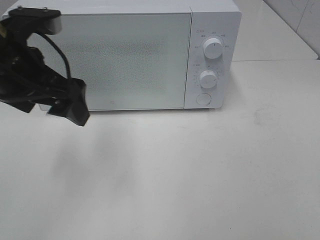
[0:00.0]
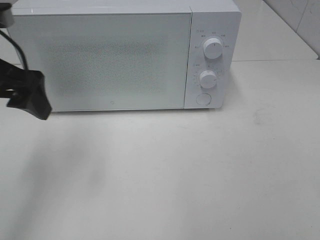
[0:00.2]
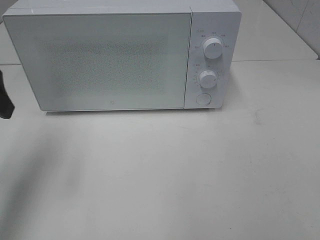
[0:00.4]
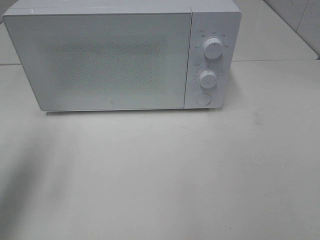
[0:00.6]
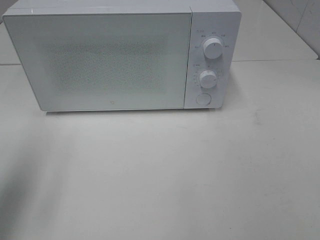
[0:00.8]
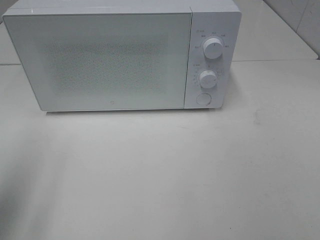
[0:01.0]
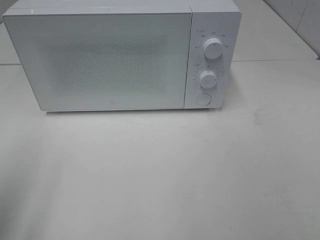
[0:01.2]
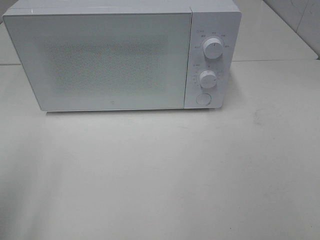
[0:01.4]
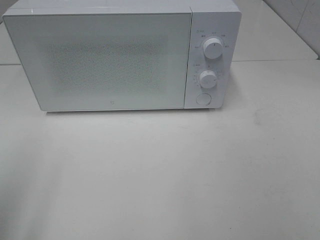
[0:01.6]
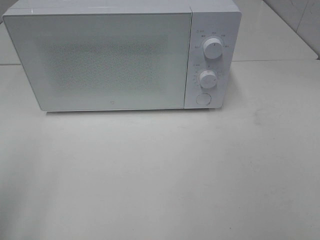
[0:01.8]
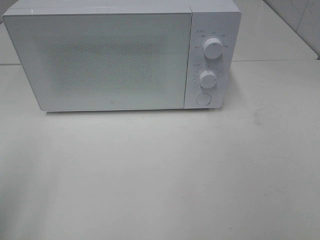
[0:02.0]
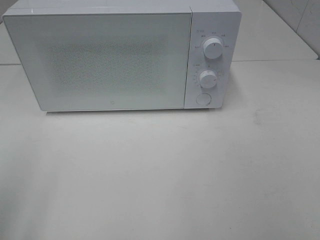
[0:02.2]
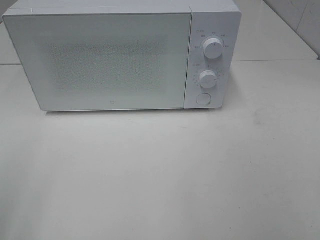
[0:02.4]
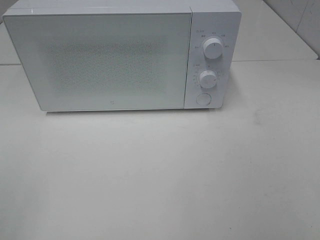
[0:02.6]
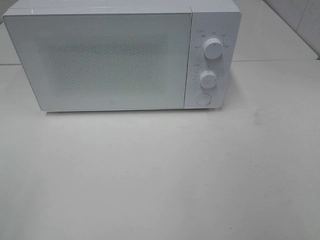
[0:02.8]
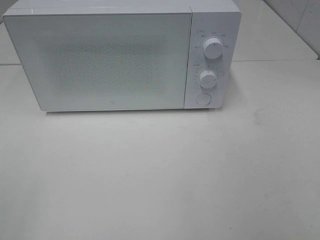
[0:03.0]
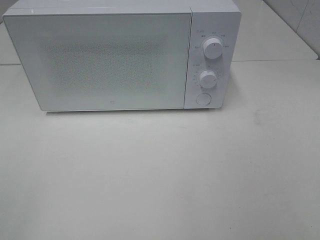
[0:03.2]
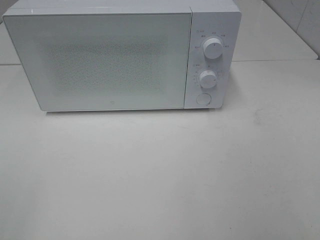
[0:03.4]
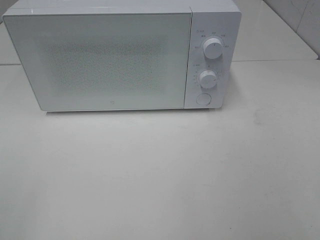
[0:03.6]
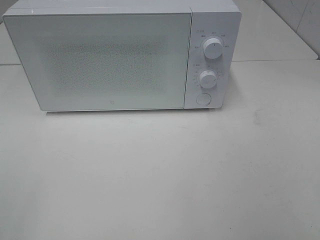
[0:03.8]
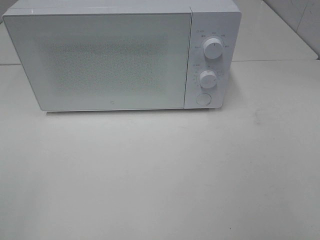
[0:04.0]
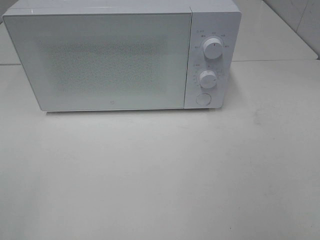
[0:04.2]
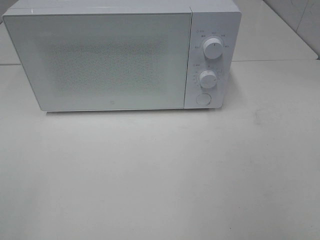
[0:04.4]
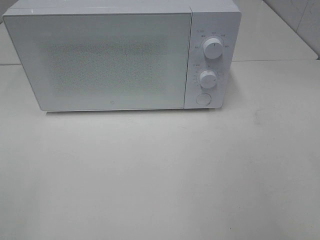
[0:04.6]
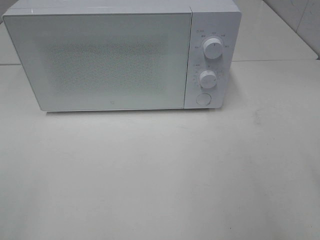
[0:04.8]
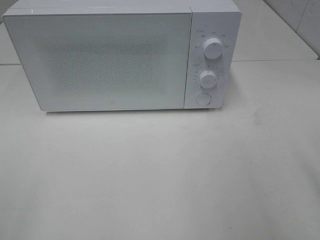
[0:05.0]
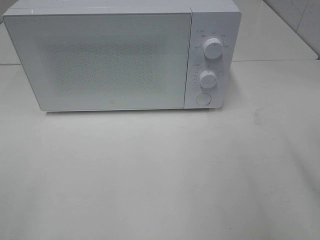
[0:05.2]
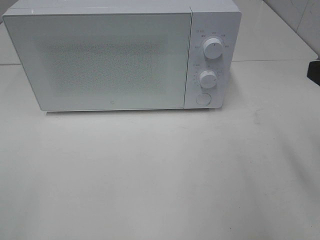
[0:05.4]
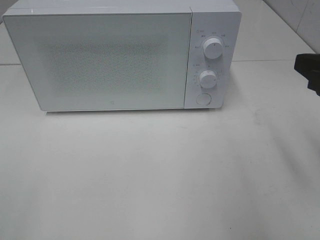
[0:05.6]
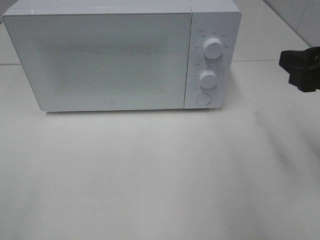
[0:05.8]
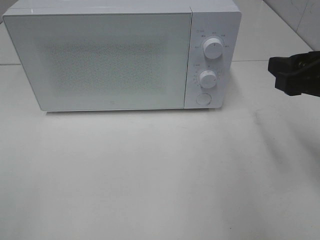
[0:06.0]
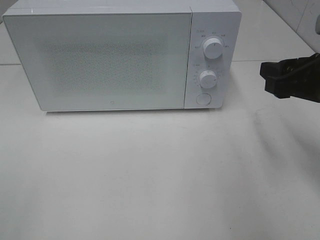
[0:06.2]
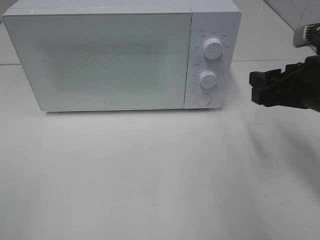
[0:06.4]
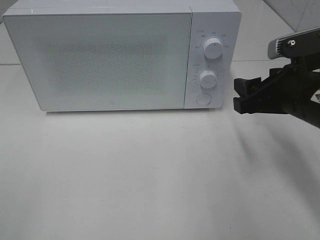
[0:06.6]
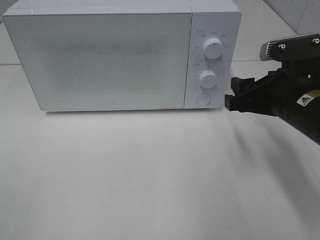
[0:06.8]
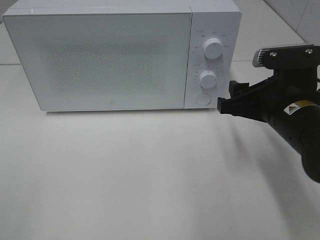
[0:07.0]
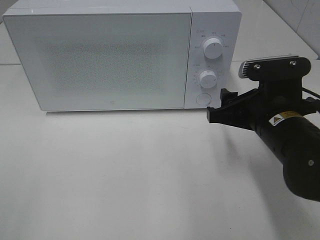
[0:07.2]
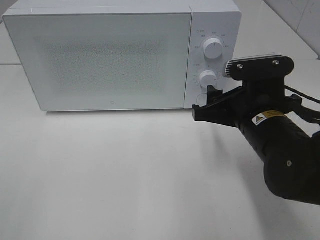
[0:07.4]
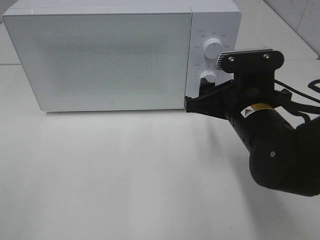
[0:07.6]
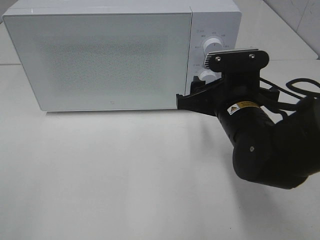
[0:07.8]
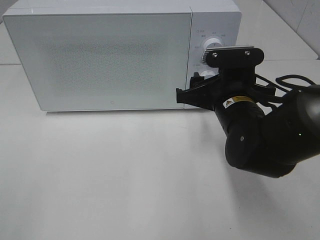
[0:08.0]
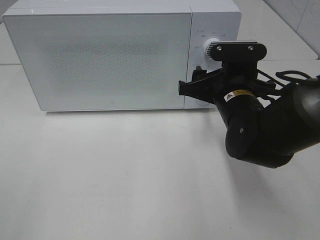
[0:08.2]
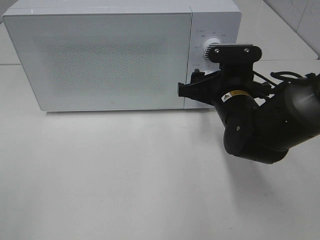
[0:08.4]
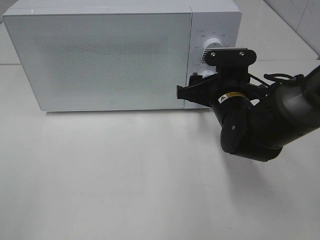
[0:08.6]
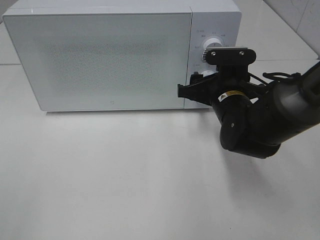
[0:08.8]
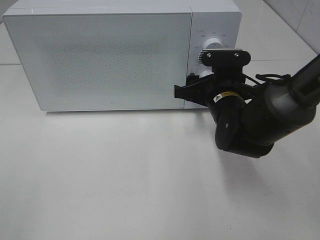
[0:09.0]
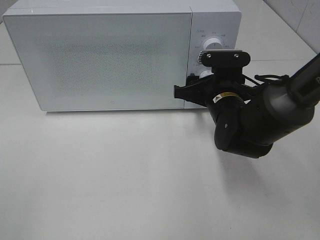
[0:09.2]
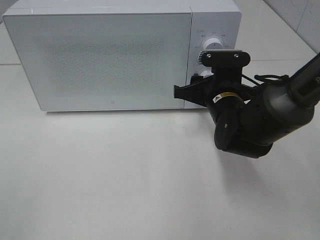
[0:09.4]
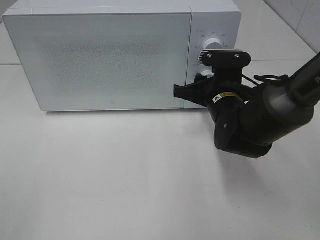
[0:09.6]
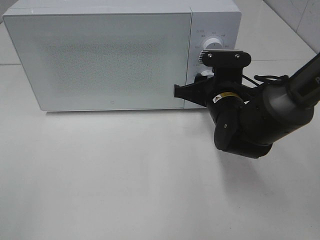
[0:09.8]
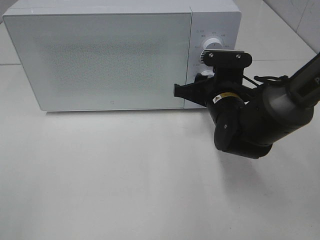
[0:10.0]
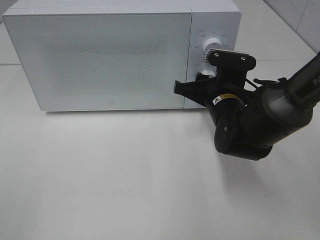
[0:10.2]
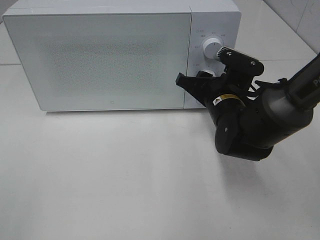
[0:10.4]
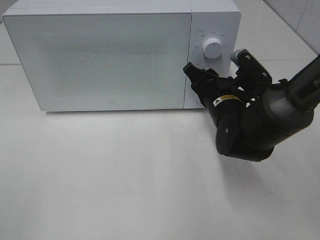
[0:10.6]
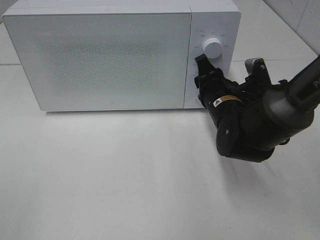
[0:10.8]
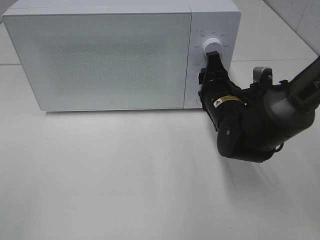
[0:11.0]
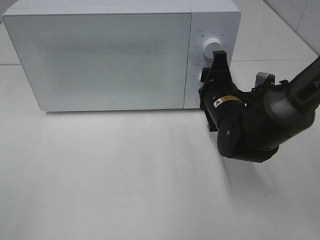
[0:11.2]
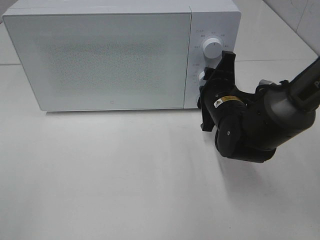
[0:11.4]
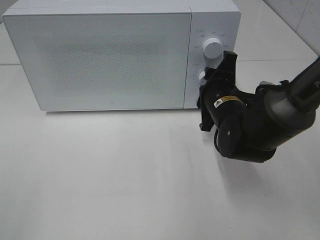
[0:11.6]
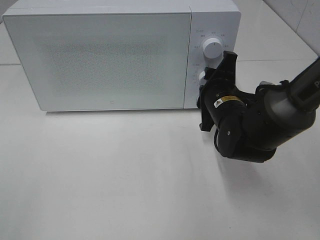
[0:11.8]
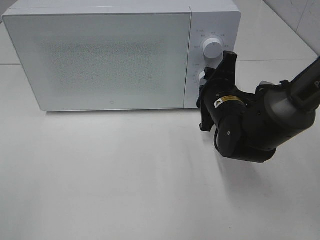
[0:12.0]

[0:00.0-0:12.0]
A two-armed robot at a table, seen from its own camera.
Task of the whole recording: Heat the burger.
0:00.0 to 0:01.6: The left gripper goes some 20 cm backward and to the left.
0:04.4 to 0:06.0: The right gripper goes roughly 20 cm forward and downward.
0:06.0 to 0:07.6: The right gripper moves to the left and downward, about 15 cm.
0:07.6 to 0:09.0: The right gripper moves forward, roughly 10 cm.

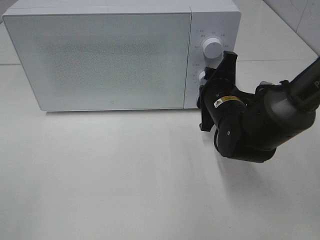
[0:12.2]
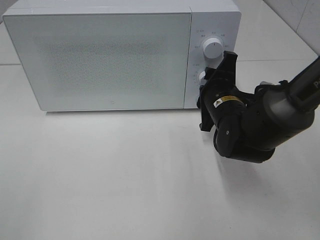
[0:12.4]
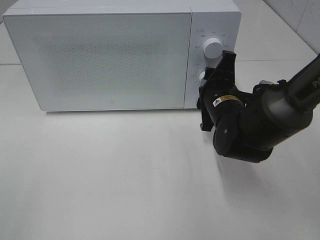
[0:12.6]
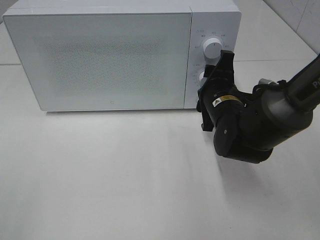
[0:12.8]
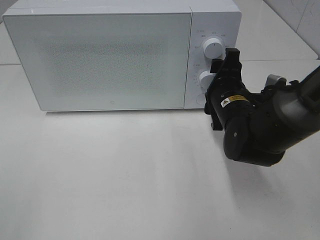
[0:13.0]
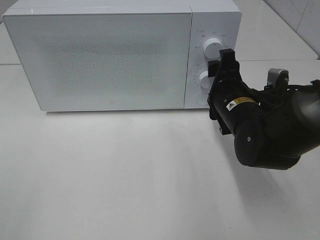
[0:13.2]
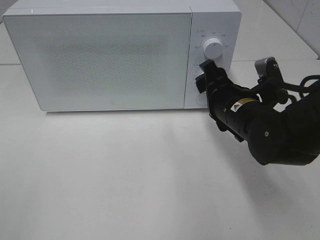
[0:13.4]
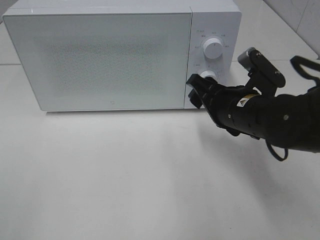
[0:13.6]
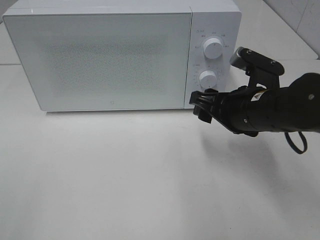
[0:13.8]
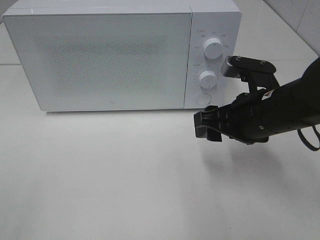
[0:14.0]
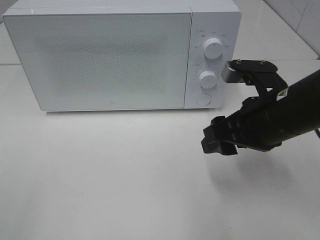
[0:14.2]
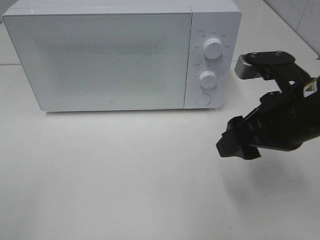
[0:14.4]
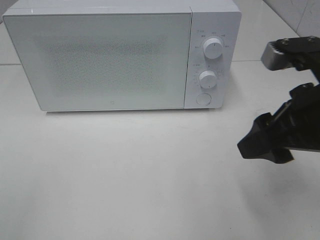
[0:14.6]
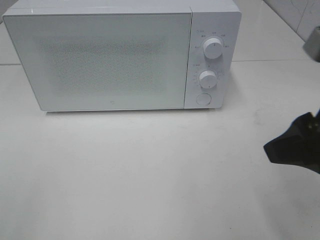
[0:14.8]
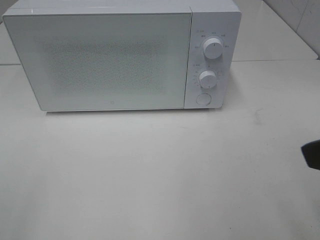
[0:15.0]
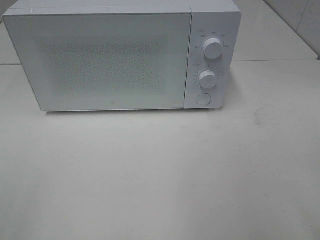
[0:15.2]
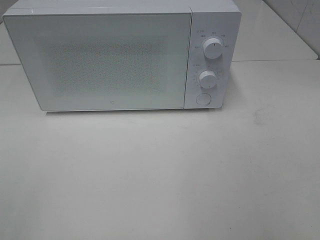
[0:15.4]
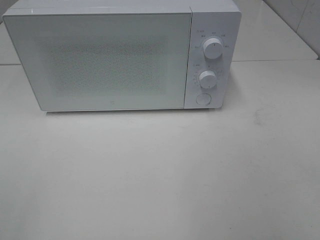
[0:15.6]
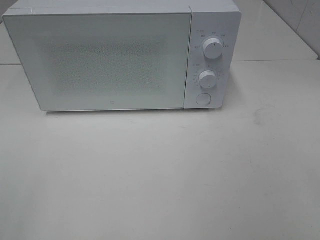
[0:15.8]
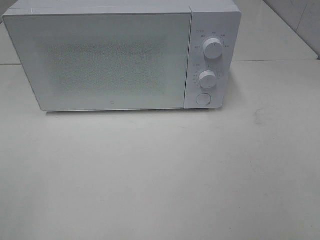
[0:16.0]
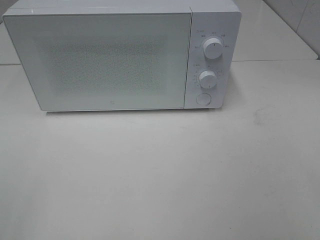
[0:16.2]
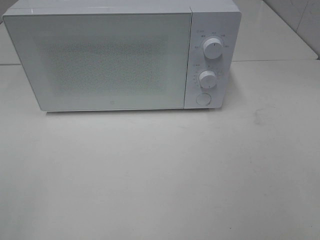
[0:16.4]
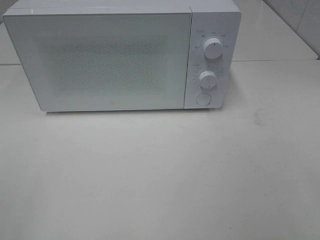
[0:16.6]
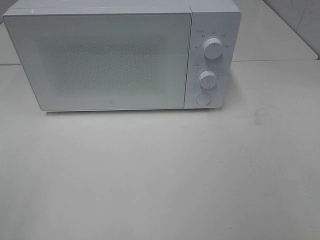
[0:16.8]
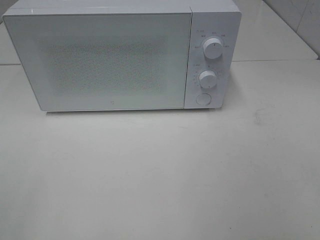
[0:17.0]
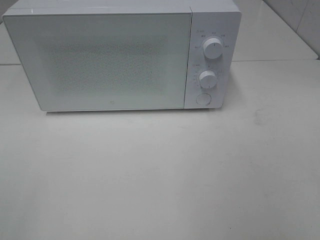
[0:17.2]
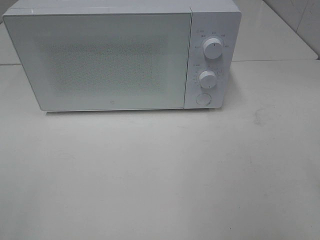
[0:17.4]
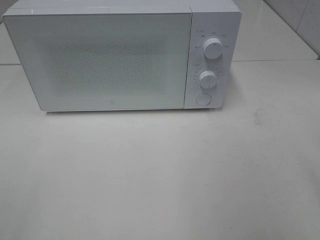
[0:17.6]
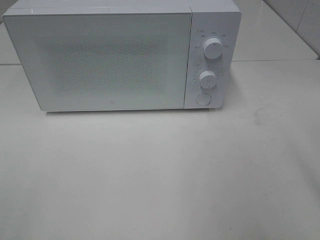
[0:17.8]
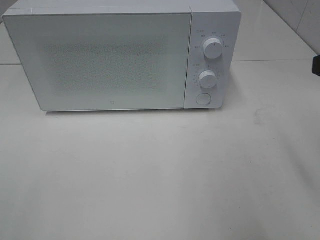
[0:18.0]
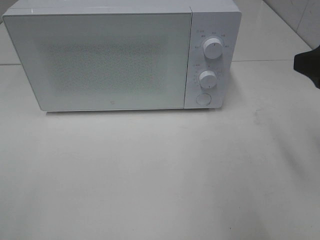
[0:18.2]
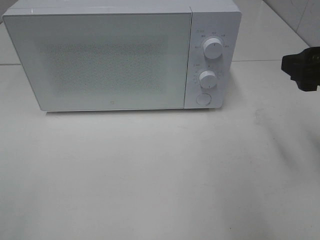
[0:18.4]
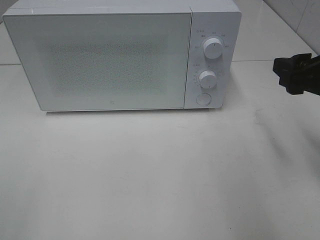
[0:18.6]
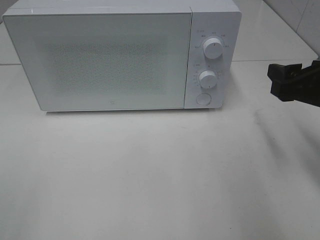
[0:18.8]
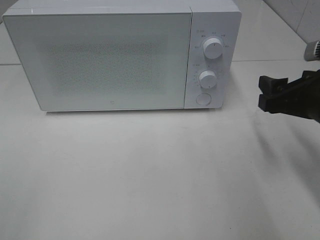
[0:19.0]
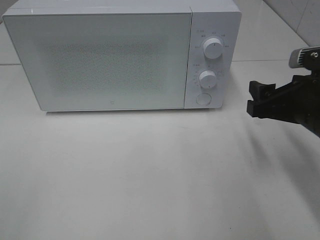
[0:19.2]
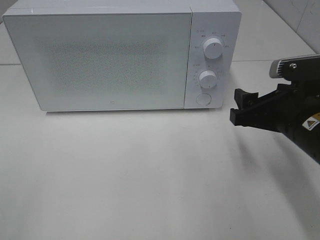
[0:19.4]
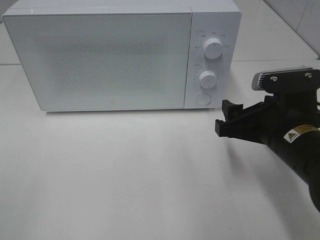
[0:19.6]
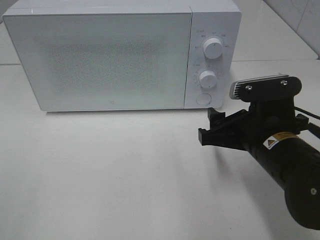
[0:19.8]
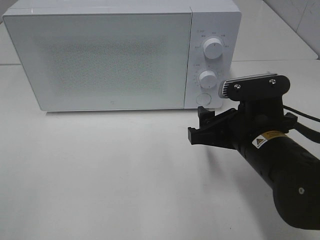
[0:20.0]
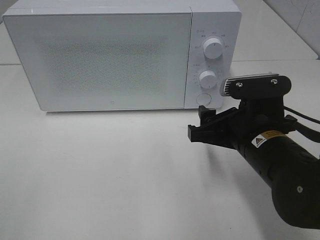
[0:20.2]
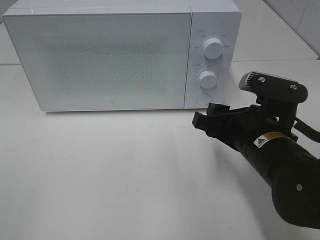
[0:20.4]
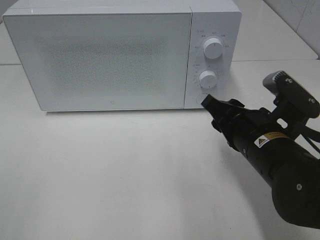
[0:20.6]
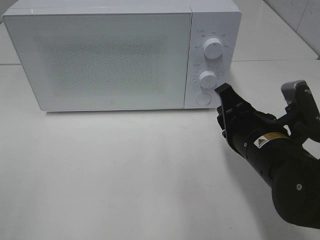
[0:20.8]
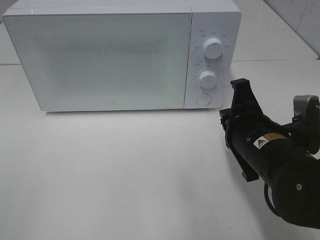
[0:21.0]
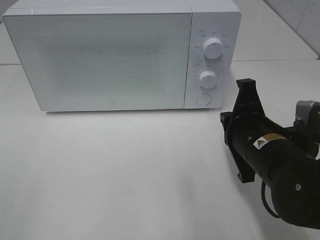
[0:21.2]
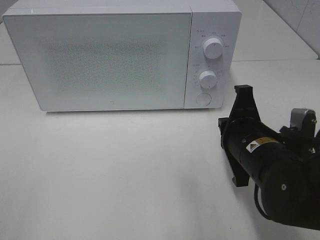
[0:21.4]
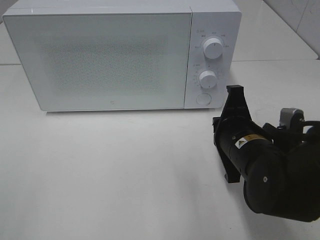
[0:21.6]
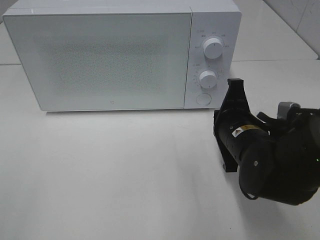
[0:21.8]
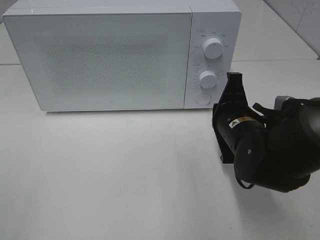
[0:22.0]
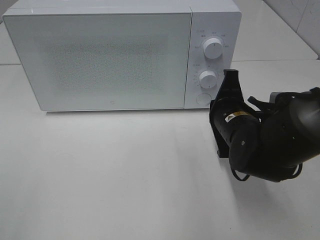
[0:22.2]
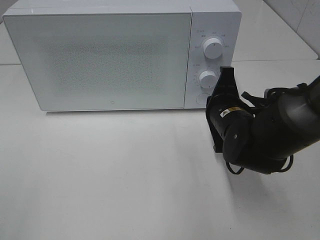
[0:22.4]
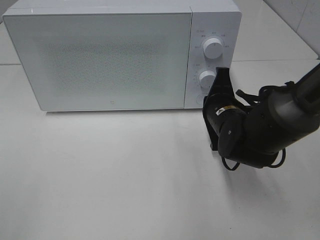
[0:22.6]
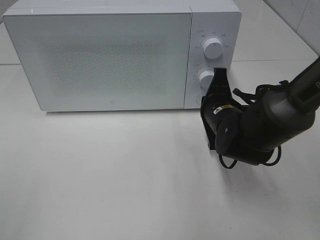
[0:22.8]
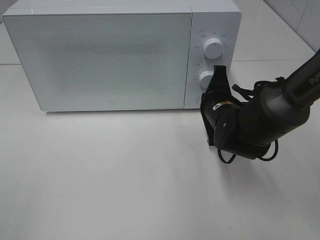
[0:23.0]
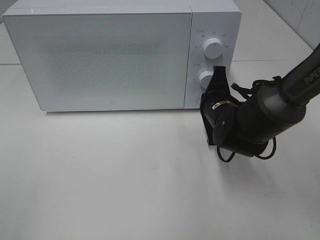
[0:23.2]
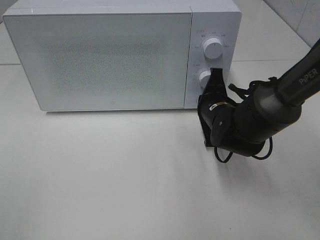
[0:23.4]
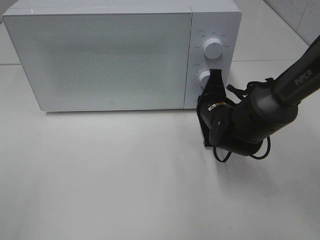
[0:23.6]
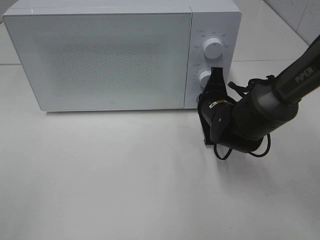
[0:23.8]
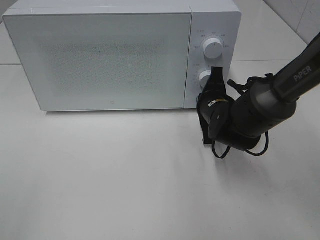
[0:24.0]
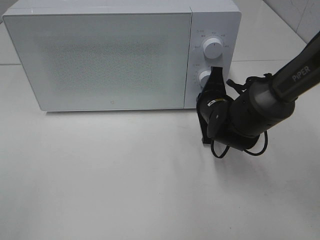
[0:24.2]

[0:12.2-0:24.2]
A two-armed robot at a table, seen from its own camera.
Task of the whole recording: Heat the burger.
0:12.2 to 0:13.8: The right gripper shifts some 5 cm backward.
0:13.8 to 0:15.2: The right gripper heads backward, upward and to the right, covering roughly 25 cm.
0:16.6 to 0:18.2: The right gripper shifts roughly 20 cm forward.
0:18.2 to 0:19.8: The right gripper travels downward and to the left by about 15 cm.
0:19.8 to 0:21.2: The right gripper closes.
0:21.2 to 0:22.6: The right gripper moves forward, some 10 cm.
0:22.6 to 0:24.2: The grippers move only a little.
